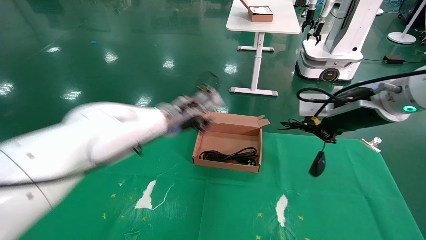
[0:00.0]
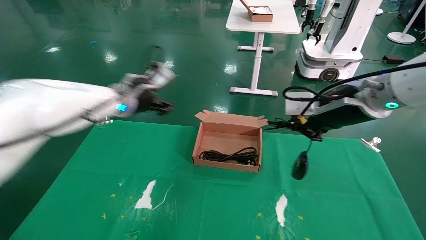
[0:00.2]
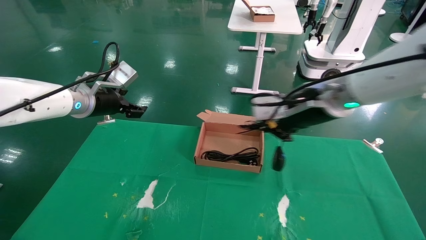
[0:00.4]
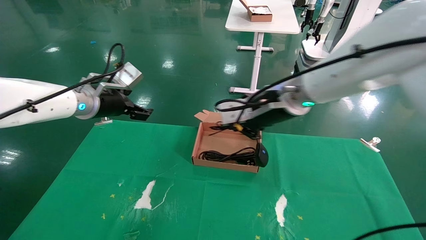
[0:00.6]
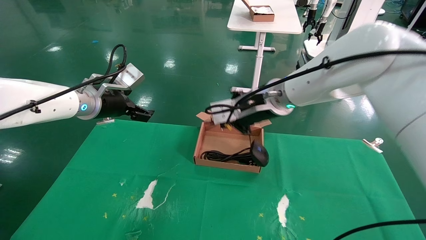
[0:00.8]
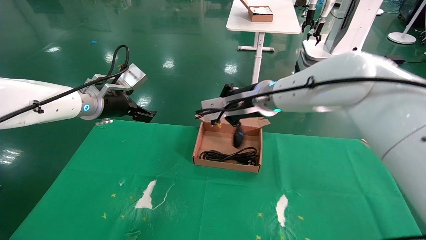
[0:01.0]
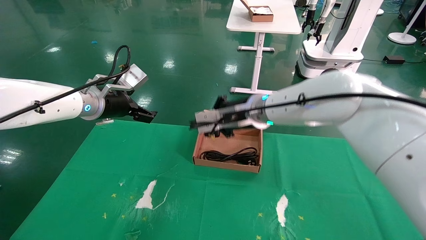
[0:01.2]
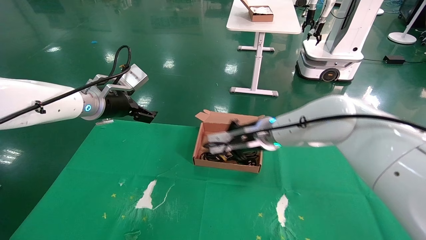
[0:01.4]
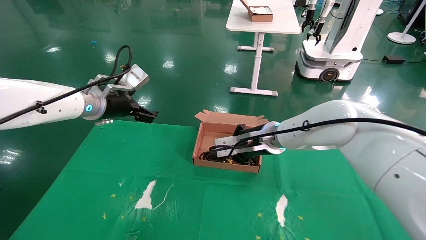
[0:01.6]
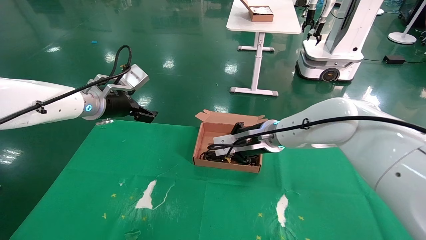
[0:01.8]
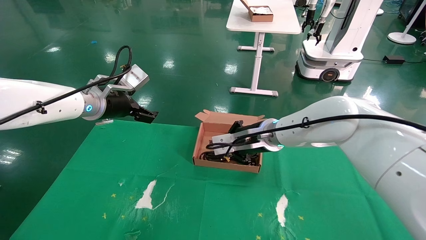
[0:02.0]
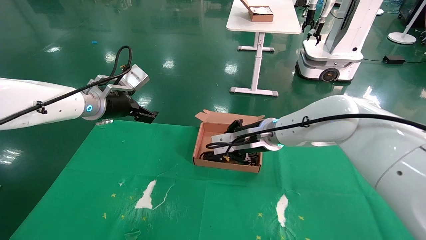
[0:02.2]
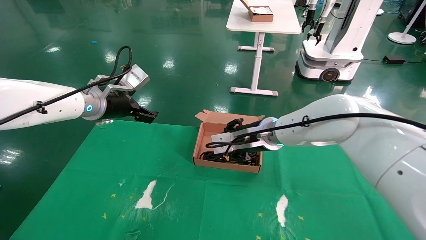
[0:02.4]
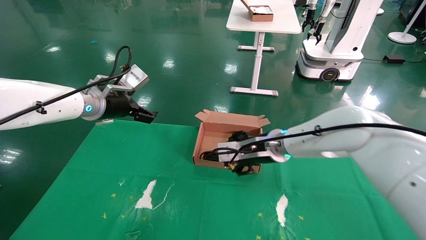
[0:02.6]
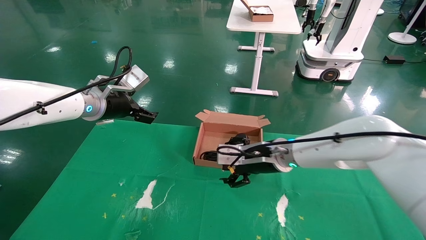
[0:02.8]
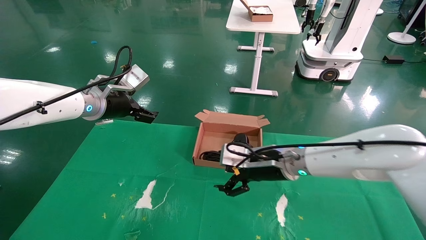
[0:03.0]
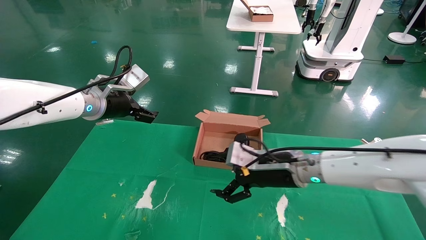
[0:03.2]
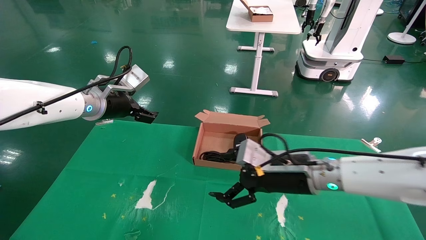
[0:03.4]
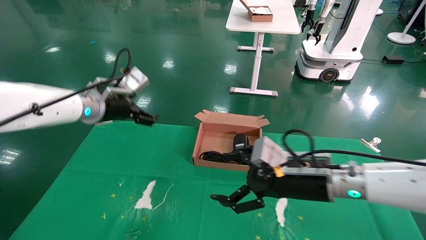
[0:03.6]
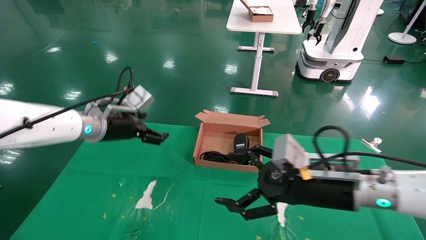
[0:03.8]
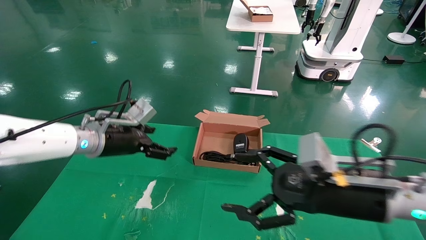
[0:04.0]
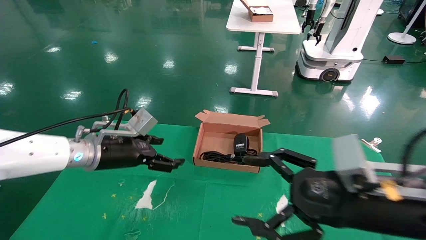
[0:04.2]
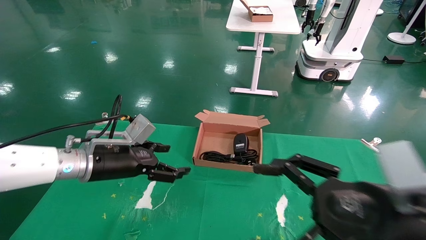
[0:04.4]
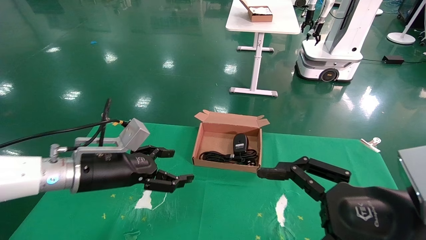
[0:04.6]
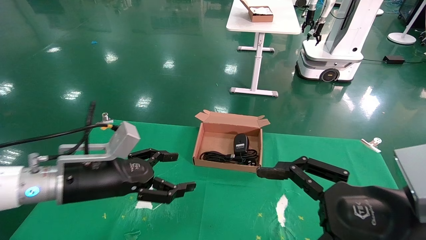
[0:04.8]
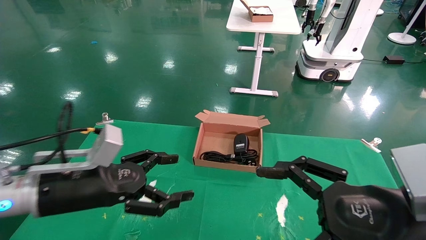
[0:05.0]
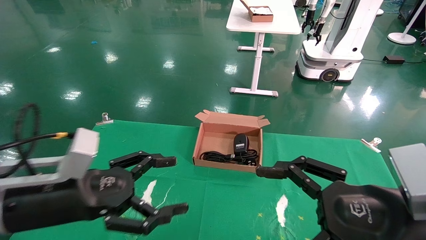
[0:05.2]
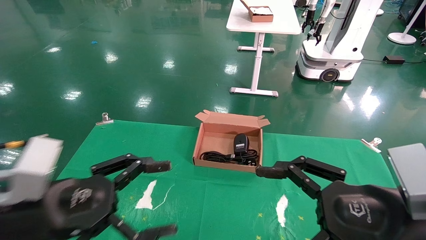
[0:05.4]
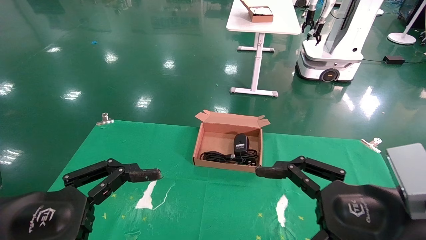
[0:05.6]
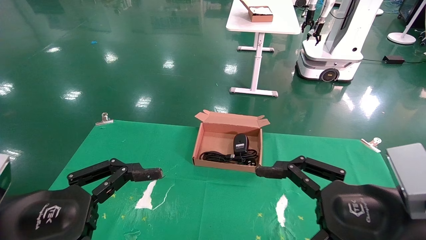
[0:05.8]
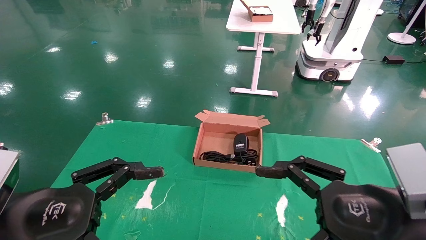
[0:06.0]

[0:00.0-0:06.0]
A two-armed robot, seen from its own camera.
Step, 0:00.0 to 0:02.4: Place the mouse and power cord into the box.
0:00.0 to 0:01.6: The left gripper goes approximately 15 cm to the left, and opens up; the right gripper is displaced to the left, forward and downward by roughly 20 cm.
0:01.6 to 0:03.0: The right gripper travels backward by approximately 5 cm, and opens its fingers.
0:03.0 to 0:04.4: The right gripper shifts about 25 cm backward and to the right; the left gripper is displaced downward and backward by about 15 cm.
0:04.4 to 0:06.0: The left gripper moves backward, approximately 20 cm.
